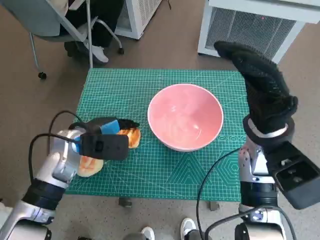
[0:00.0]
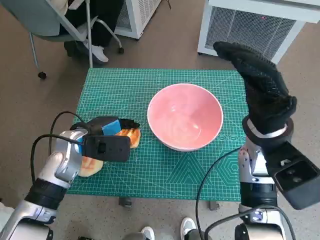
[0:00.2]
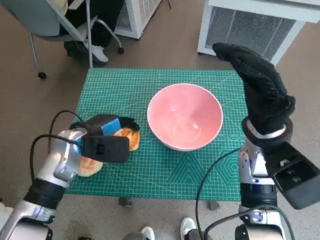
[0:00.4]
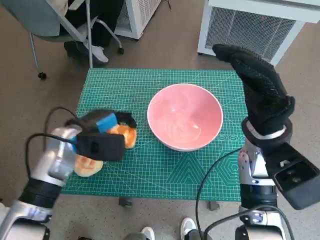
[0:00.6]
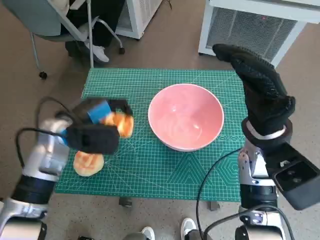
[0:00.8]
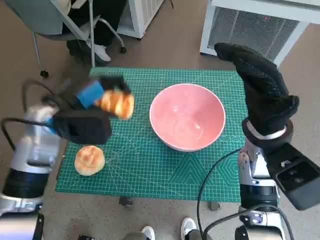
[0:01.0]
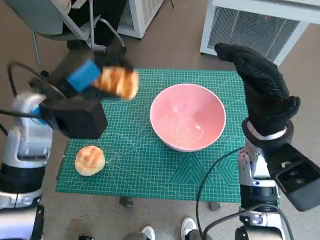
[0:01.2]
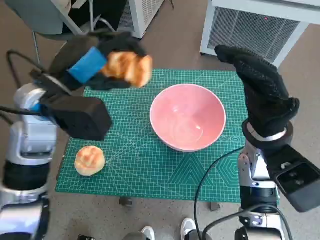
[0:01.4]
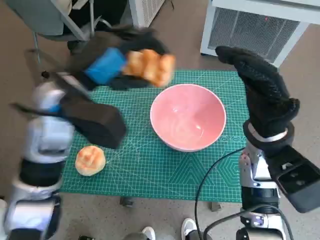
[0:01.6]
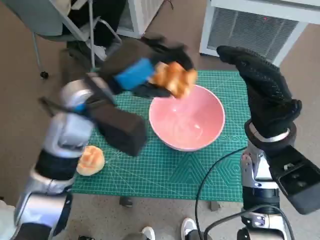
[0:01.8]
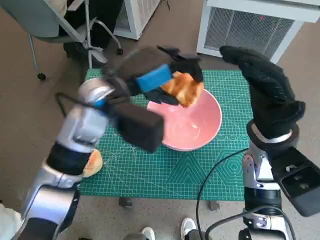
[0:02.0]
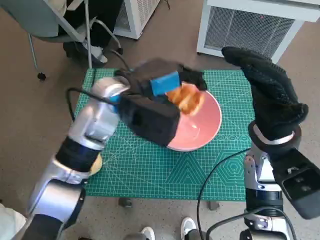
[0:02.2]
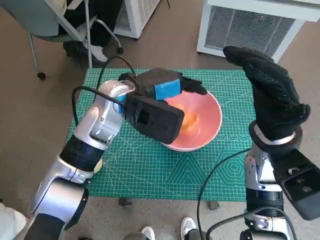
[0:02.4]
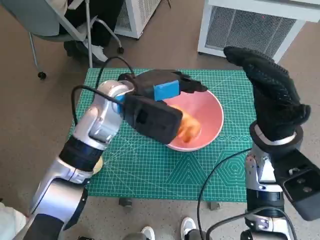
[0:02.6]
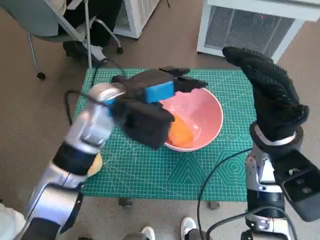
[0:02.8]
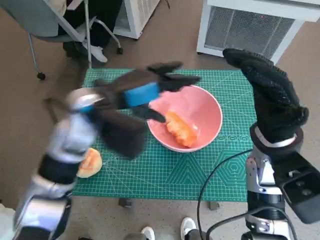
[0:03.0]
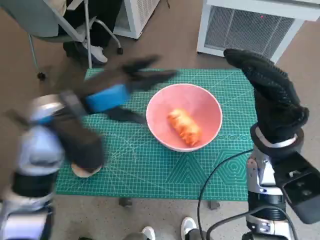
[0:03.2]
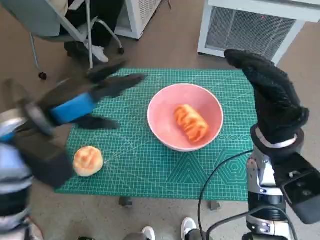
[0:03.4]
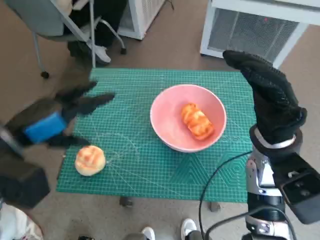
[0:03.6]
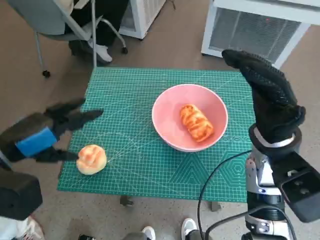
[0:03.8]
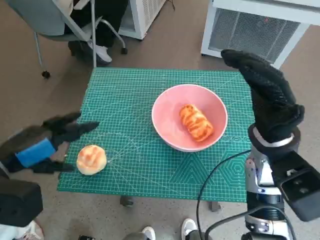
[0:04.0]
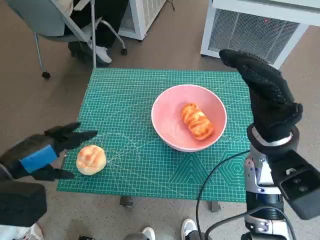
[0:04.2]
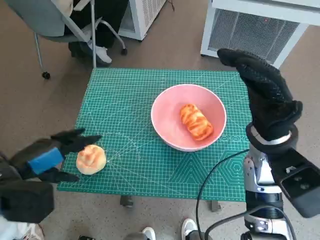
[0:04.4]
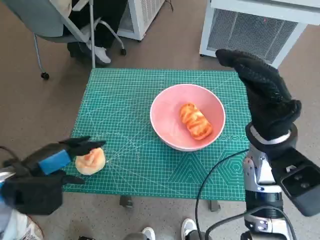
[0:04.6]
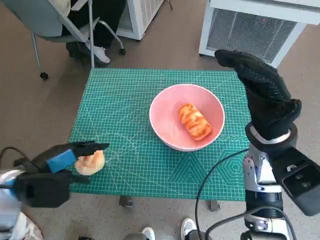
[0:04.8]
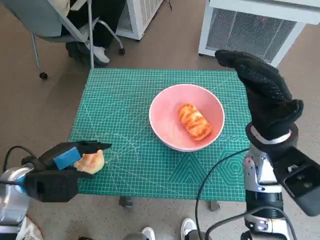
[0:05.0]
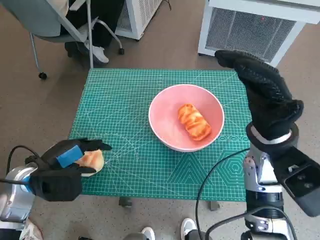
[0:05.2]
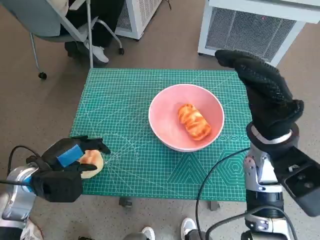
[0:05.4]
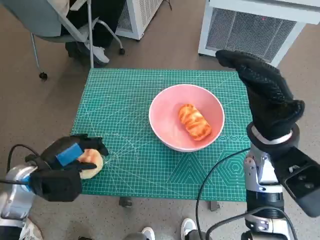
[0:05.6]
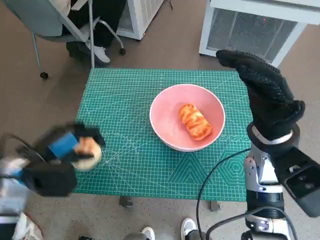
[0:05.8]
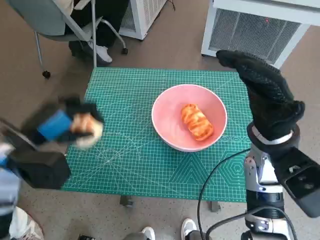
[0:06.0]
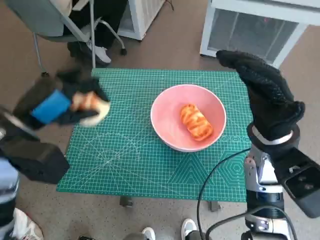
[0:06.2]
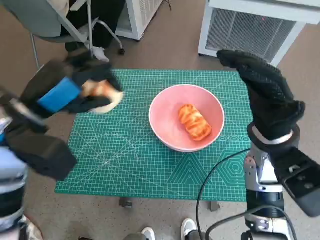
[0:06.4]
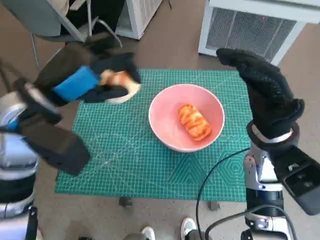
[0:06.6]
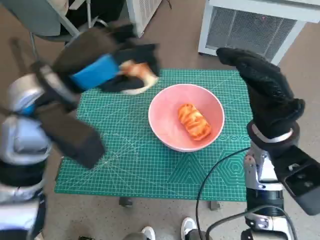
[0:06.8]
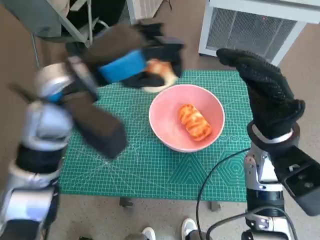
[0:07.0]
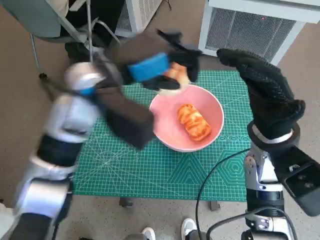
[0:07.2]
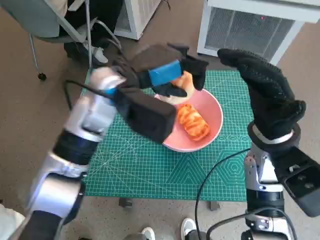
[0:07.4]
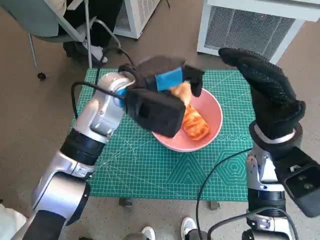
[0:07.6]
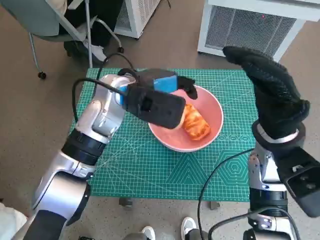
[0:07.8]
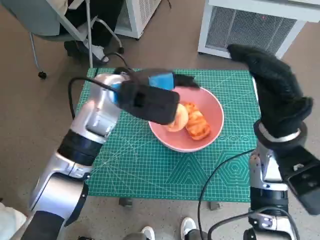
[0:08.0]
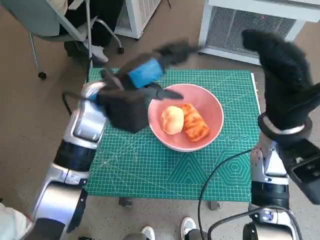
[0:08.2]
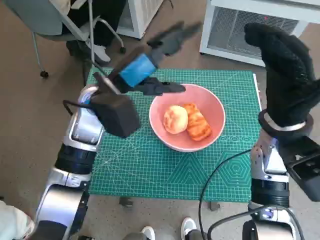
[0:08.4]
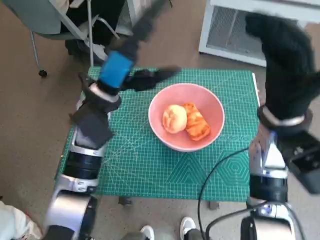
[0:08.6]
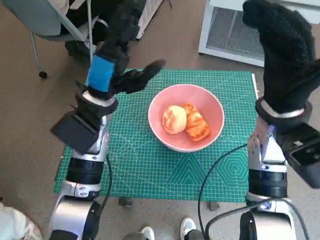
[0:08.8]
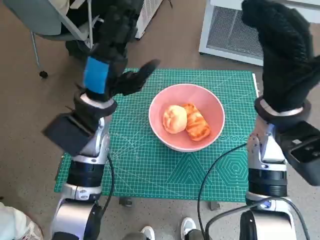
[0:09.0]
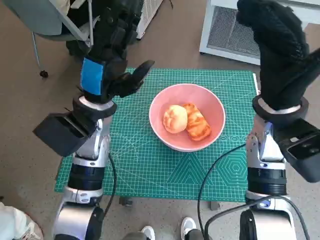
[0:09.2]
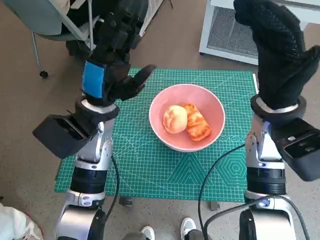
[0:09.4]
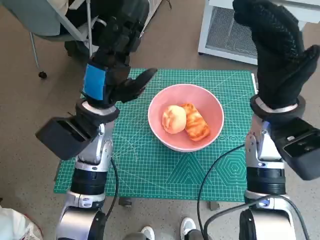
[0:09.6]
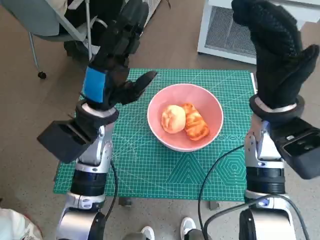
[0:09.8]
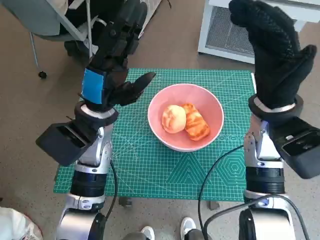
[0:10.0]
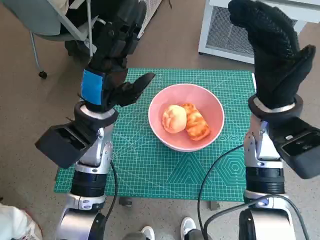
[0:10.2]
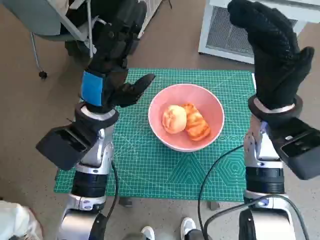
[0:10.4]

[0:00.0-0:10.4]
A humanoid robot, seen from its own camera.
Task of the whole recording: Push the bowl to the center of the table and put the bread into the bowl.
Step, 0:00.6 to 0:02.6: Place the long bread in pink bowl with left hand.
Step, 0:02.8 to 0:05.4: Grasp the round bread with left hand.
Step, 0:05.6 to 0:08.0: Place the round bread in pink bowl with left hand.
0:00.0 to 0:01.4: The left hand is displaced upward by roughly 15 cm.
0:01.4 to 0:03.0: The left hand goes approximately 5 cm to the right.
0:03.0 to 0:04.4: The left hand shifts some 20 cm to the left and backward.
0:04.4 to 0:06.0: The left hand reaches some 10 cm downward, then returns.
0:06.0 to 0:07.4: The left hand goes approximately 20 cm to the right, forward and upward.
0:07.4 to 0:09.0: The left hand goes about 5 cm downward.
